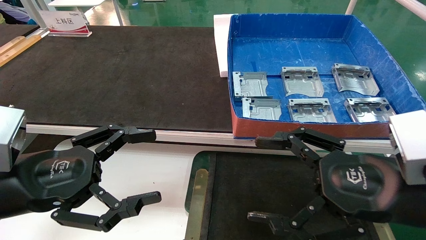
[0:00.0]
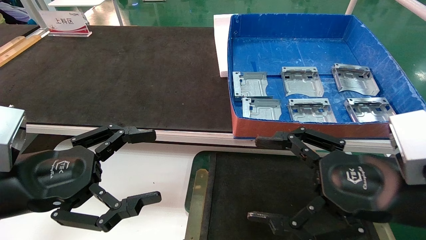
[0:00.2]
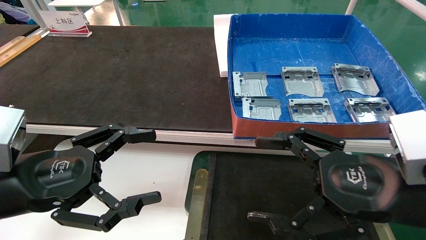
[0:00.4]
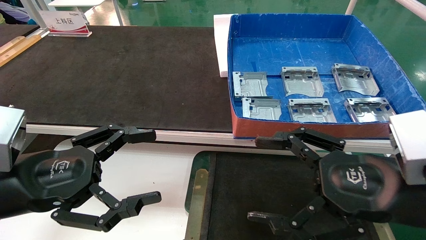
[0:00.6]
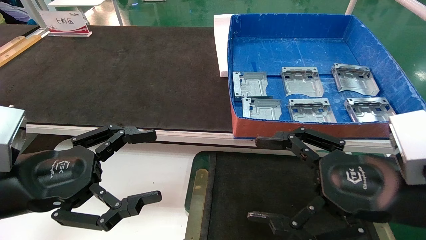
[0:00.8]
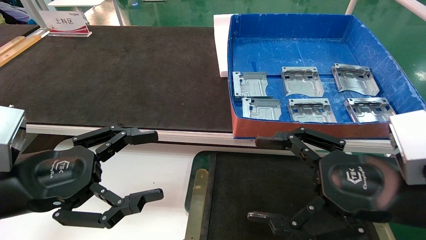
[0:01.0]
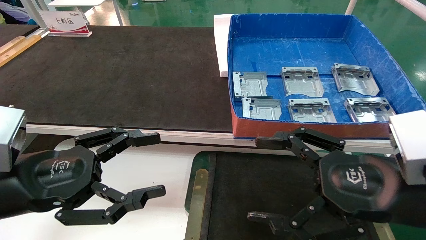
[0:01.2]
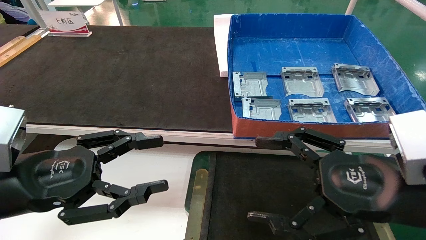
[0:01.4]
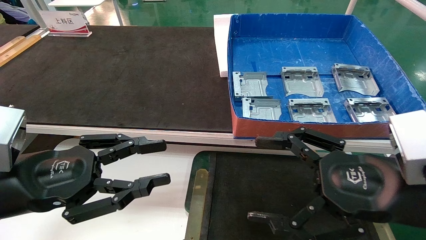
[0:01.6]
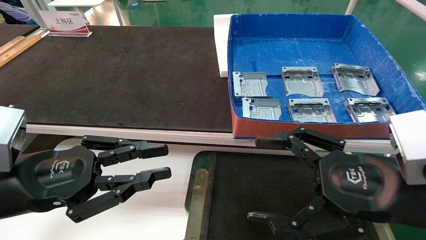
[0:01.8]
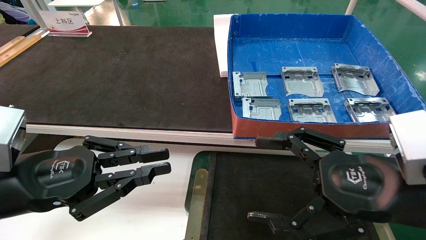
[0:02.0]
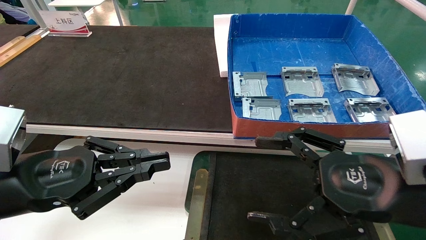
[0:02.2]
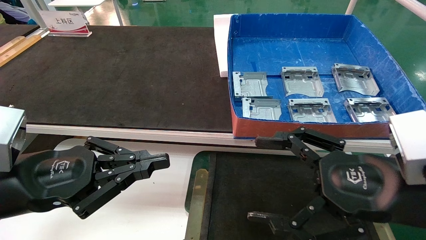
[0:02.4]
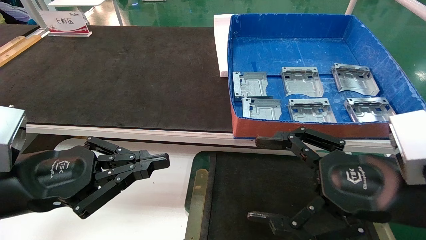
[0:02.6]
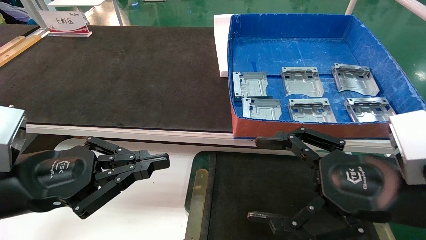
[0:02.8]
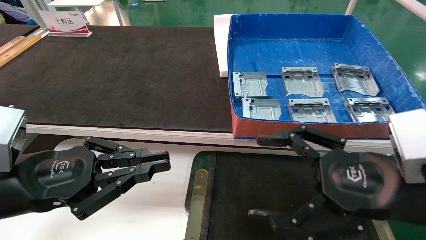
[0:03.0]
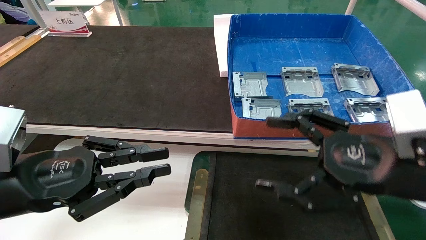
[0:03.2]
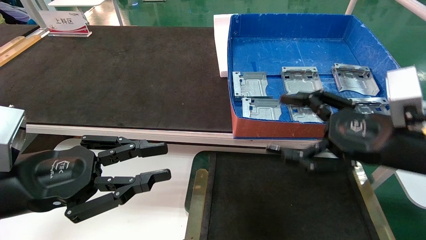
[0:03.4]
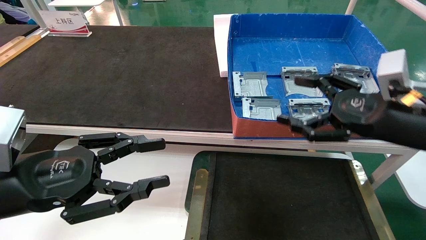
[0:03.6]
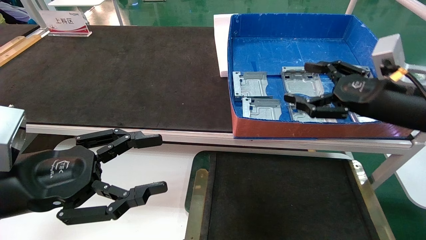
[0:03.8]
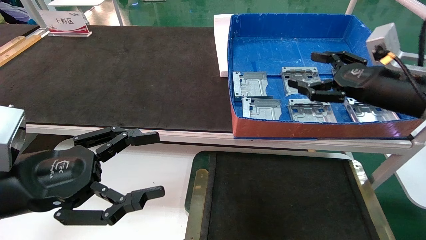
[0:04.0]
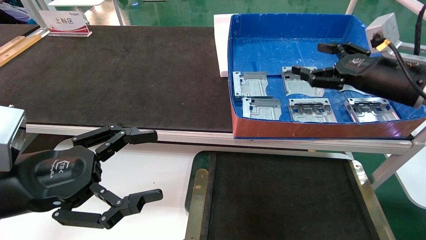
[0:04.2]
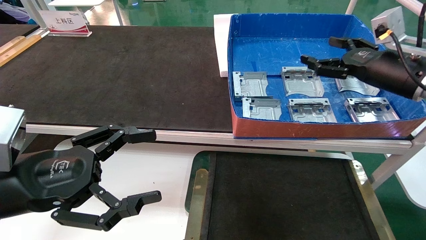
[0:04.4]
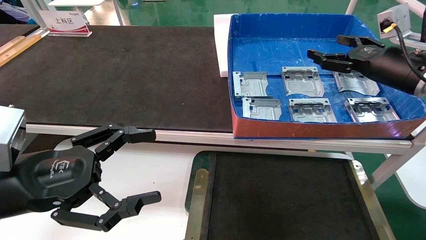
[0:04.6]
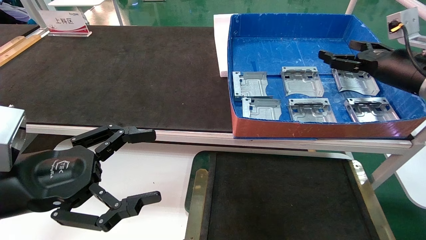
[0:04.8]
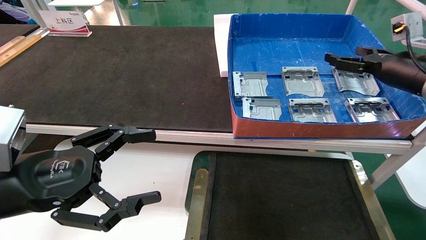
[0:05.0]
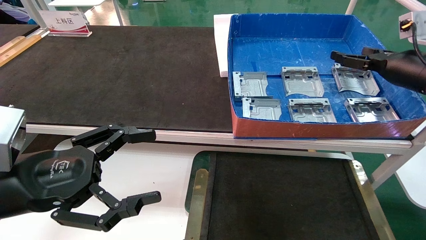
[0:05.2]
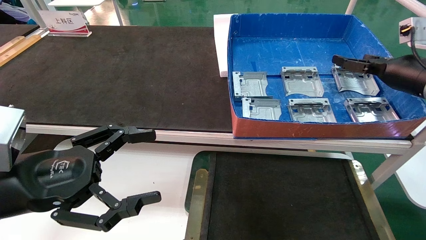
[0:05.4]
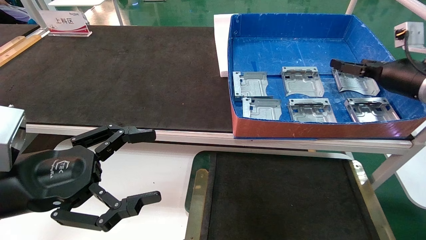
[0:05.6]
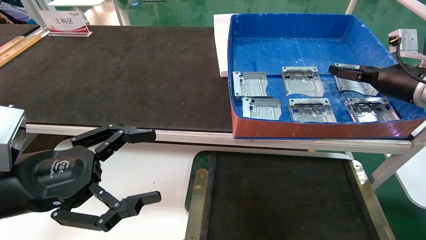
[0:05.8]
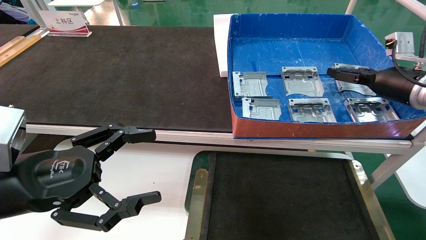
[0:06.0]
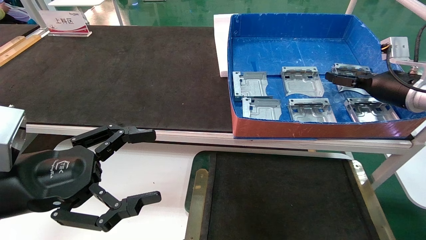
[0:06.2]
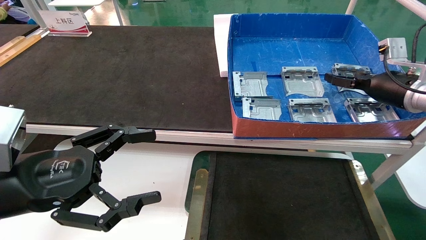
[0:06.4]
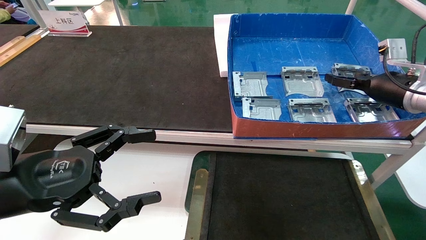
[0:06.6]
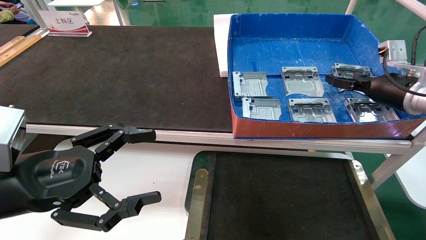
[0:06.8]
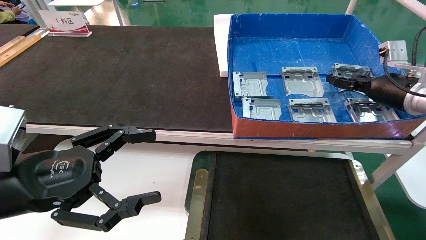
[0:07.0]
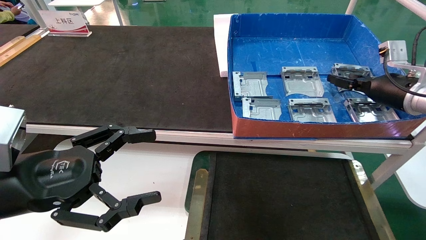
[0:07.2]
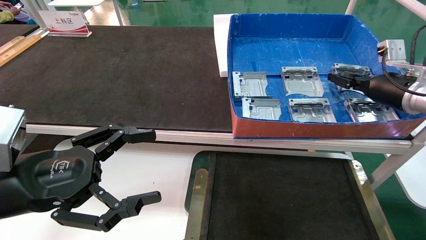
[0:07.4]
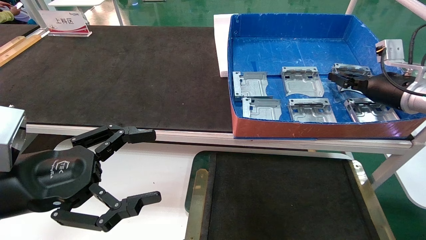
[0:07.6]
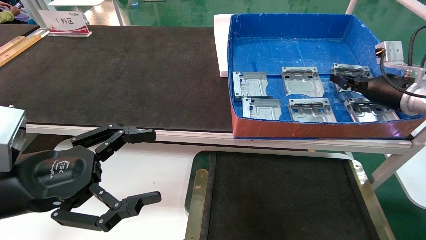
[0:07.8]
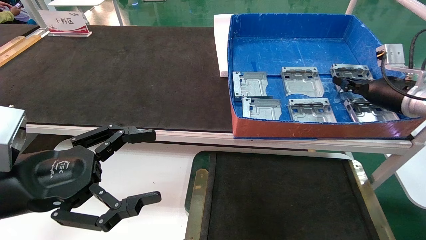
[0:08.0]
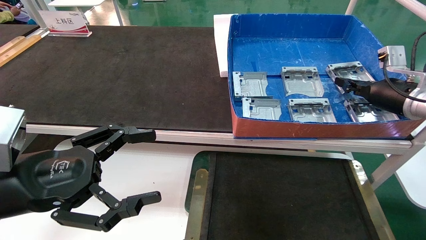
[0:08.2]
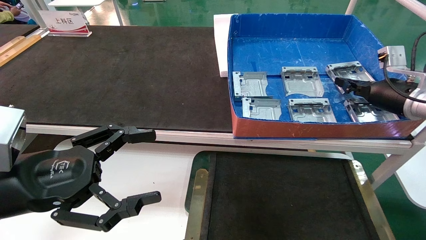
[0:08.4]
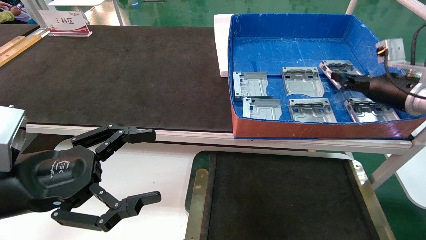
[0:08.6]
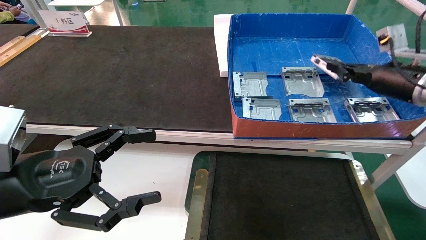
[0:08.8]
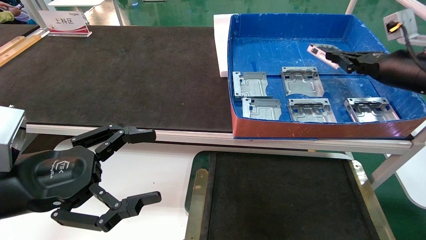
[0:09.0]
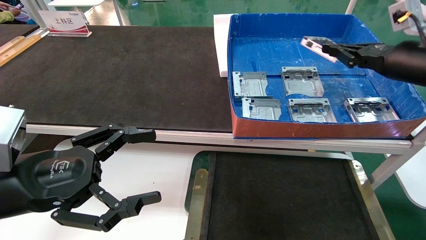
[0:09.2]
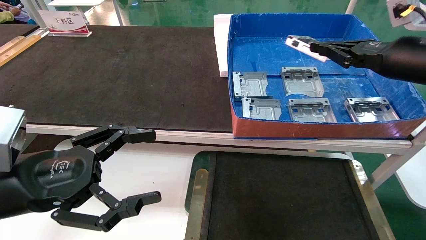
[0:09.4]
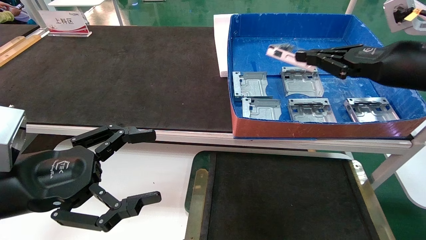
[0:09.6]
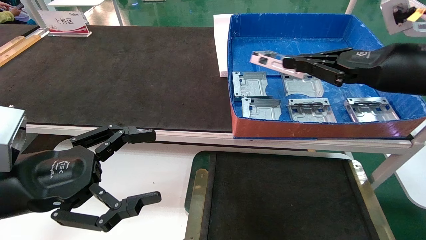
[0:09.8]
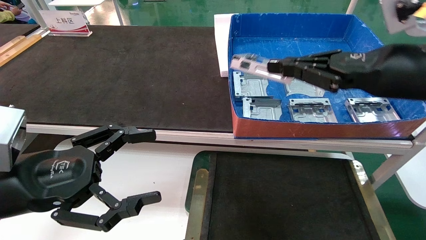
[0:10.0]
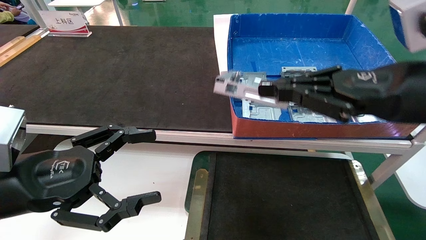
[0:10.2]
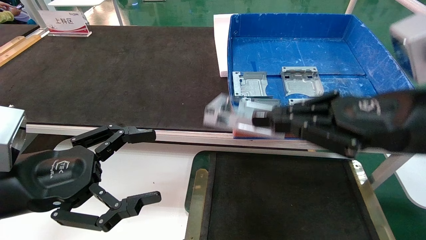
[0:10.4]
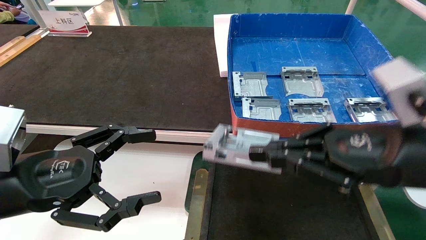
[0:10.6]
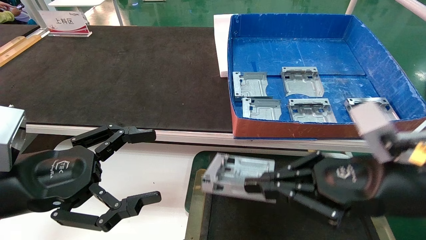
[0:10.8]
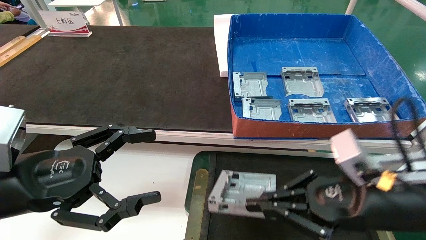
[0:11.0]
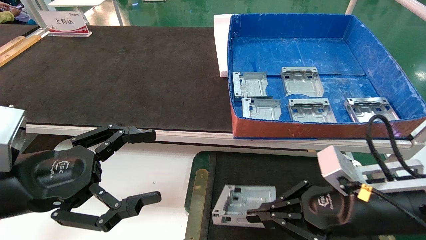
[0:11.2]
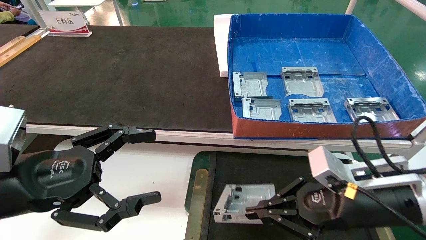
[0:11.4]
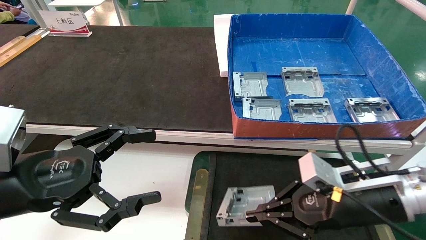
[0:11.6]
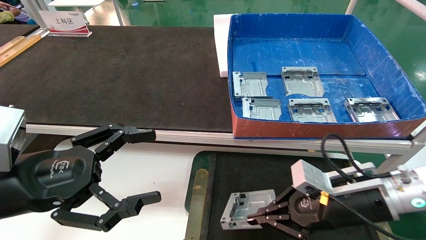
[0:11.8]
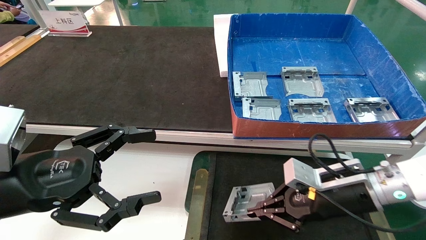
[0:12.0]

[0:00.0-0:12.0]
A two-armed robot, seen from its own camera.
Task of the whole recording: pick up parts and place them into a black container.
Step, 0:03.4 to 0:08.0: Pick up the hard drive bracket from the feeding area.
0:00.0 to 0:01.6: The left gripper closes its fingers.
0:01.6 to 0:03.0: The left gripper closes its fingers.
0:03.0 to 0:04.4: The right gripper is displaced forward, to the right and upward by approximately 20 cm; the left gripper opens its fingers.
0:04.4 to 0:06.0: The right gripper ends up some 5 cm from where it was.
0:06.0 to 0:07.6: The right gripper closes.
0:07.6 to 0:09.0: The right gripper moves upward, some 5 cm, and closes up.
0:09.0 to 0:10.4: The right gripper travels backward and to the left by about 20 cm.
0:10.4 to 0:12.0: The right gripper heads downward and forward, covering some 20 cm.

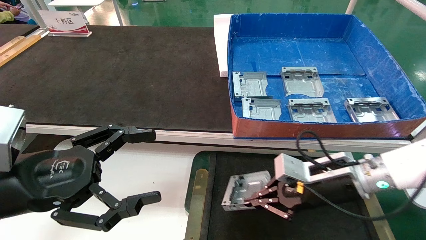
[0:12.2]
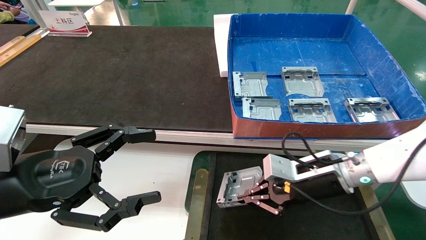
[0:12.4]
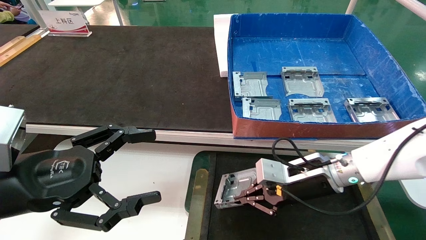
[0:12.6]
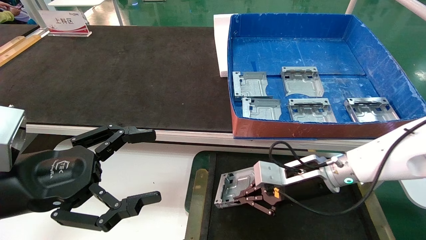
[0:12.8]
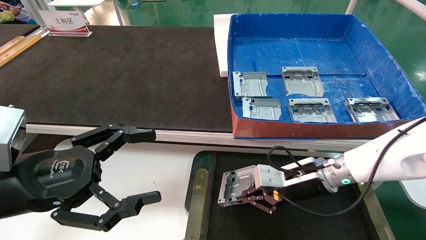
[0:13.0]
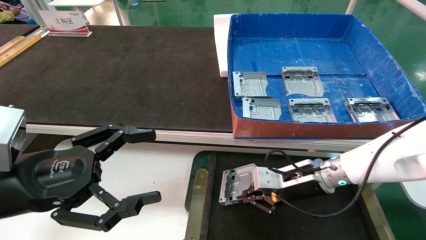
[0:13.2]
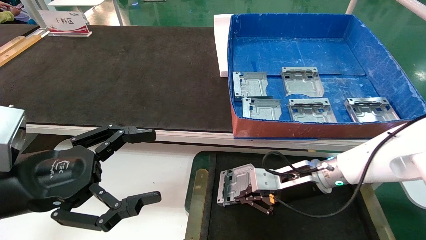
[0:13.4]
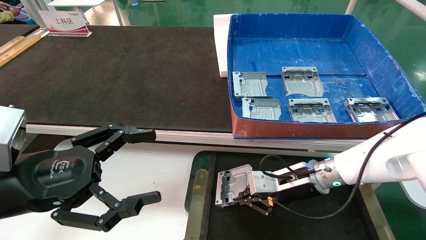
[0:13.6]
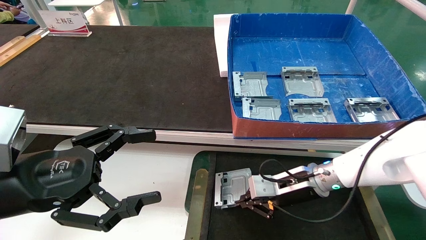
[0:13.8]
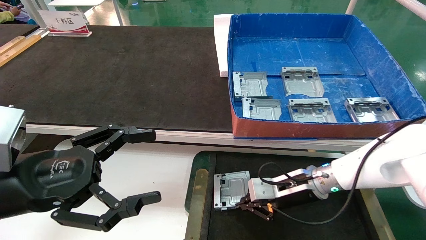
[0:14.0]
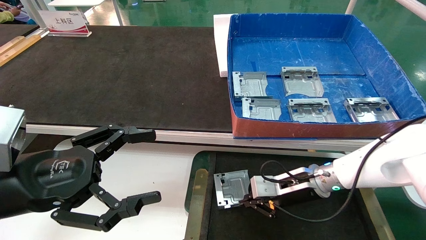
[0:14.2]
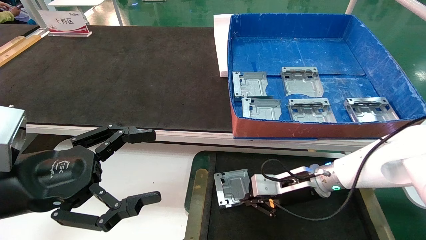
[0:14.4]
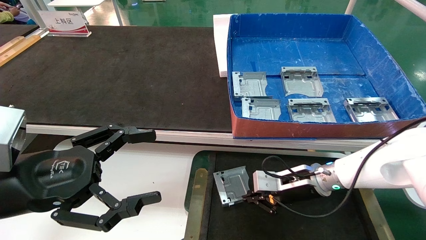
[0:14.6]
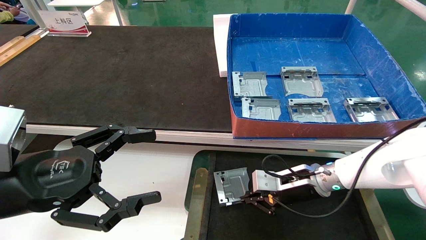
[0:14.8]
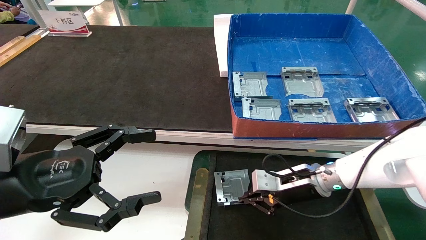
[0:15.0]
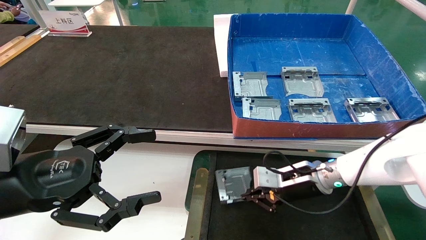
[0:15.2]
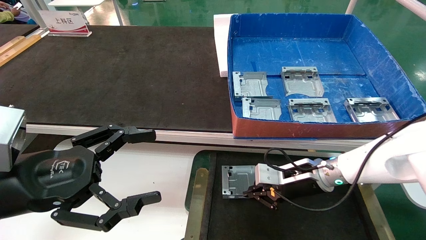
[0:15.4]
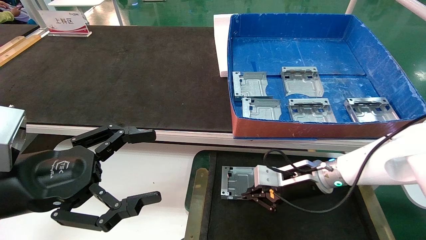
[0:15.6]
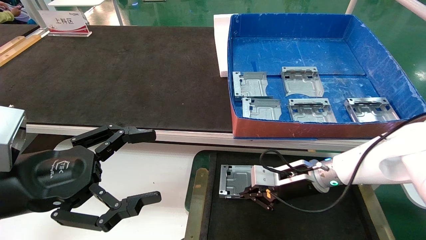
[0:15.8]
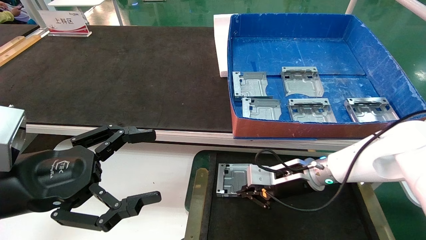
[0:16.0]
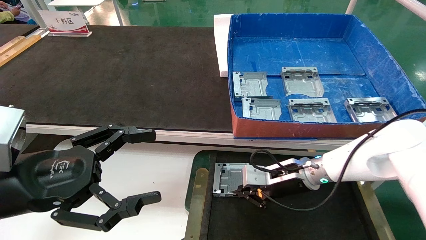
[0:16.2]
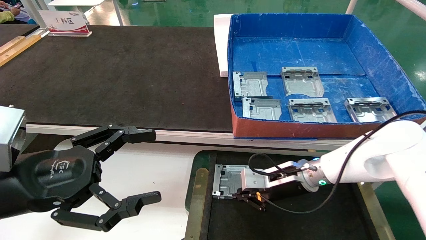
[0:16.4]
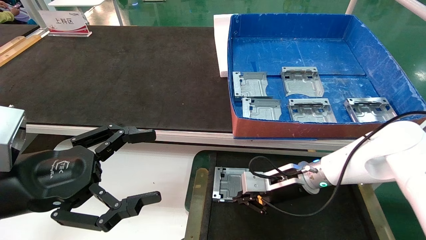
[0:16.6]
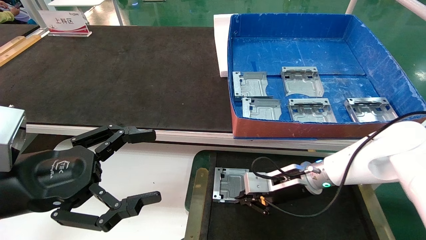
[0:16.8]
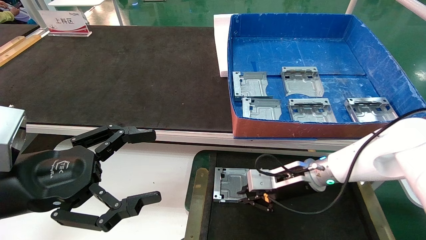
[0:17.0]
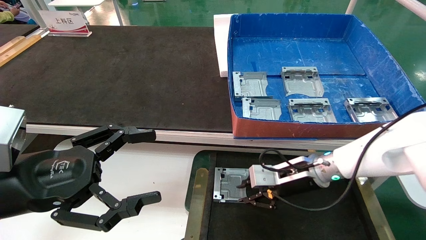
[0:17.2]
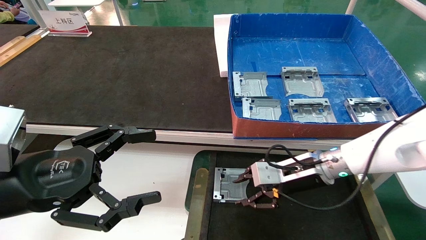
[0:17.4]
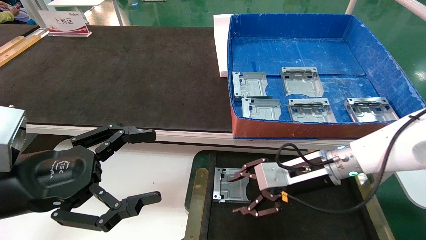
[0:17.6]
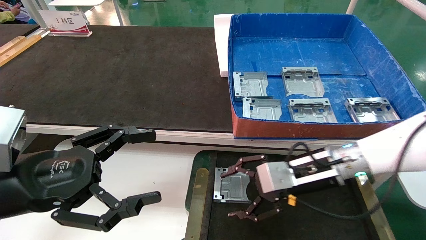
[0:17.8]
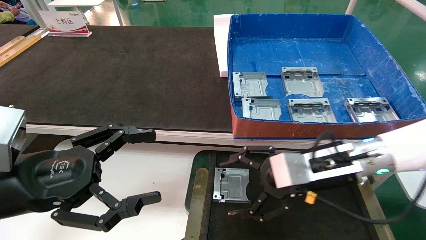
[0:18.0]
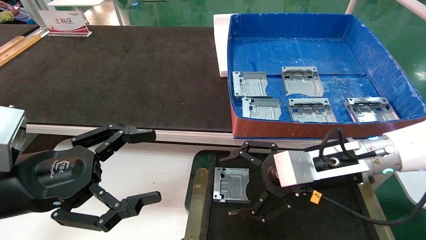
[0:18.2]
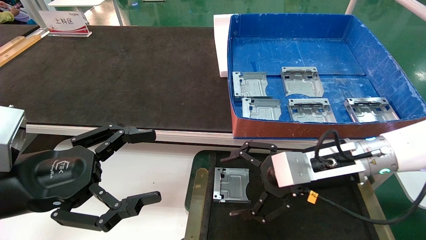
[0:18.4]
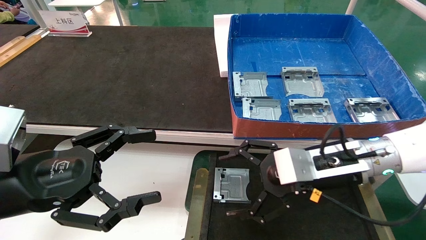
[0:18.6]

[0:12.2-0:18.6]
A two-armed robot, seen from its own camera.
Task of the whole recording: pick up parts and place them into a black container.
Step, 0:12.2 to 0:17.2: Place the hard drive bracket into the box.
0:12.2 to 0:13.8: The right gripper goes about 5 cm forward.
0:13.8 to 0:17.0: The grippers move only a little.
0:17.0 to 0:18.6: The right gripper is displaced backward and upward by approximately 15 cm, and opens its fingers.
